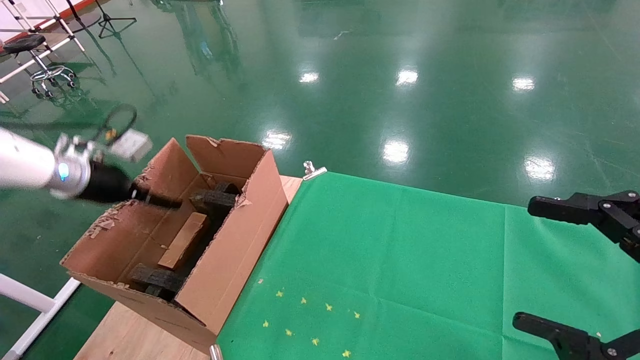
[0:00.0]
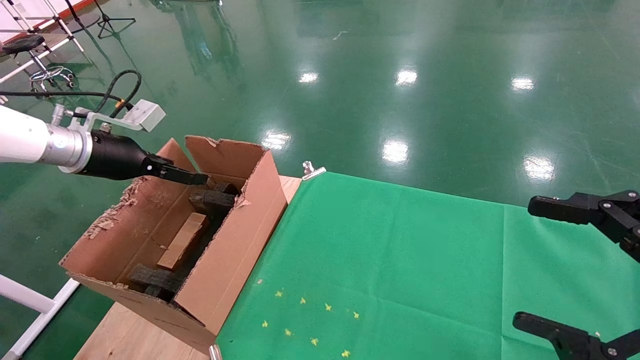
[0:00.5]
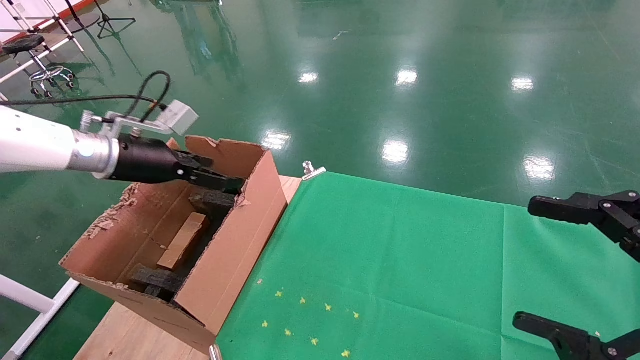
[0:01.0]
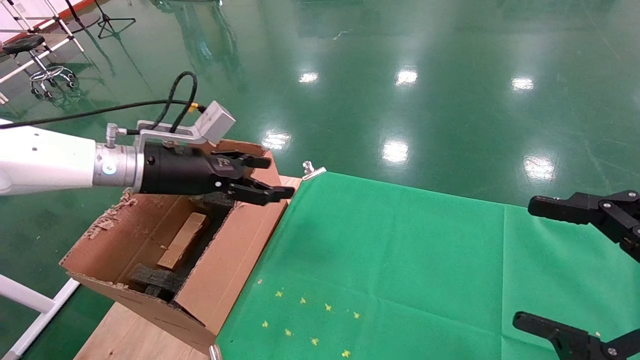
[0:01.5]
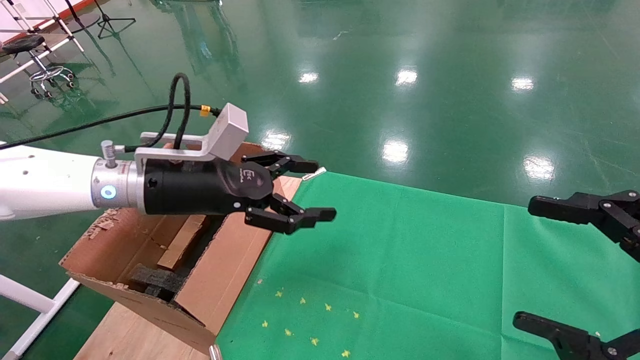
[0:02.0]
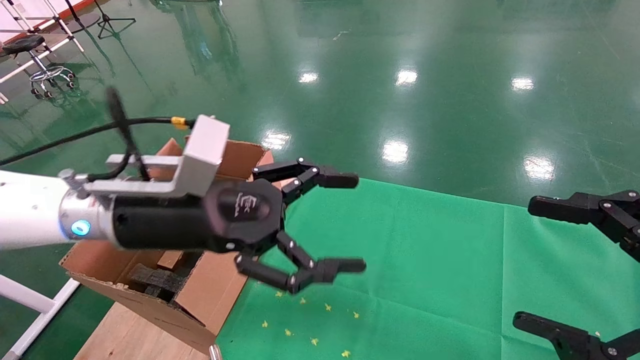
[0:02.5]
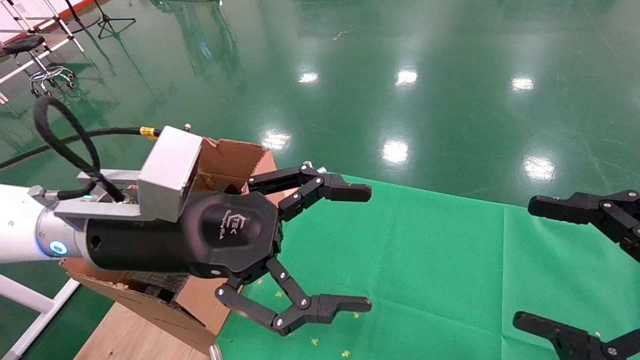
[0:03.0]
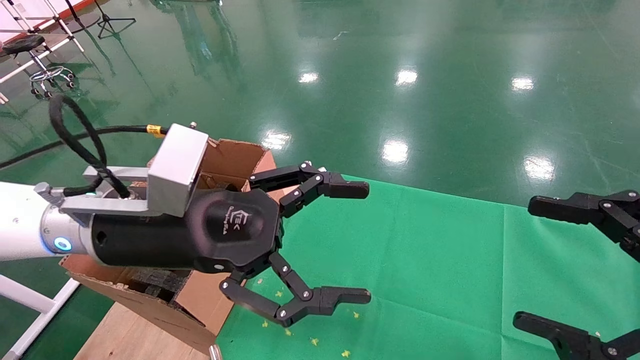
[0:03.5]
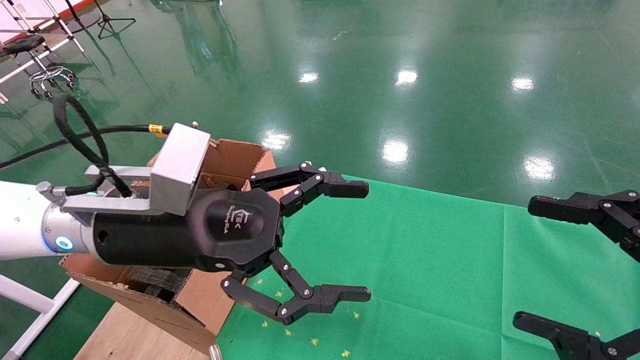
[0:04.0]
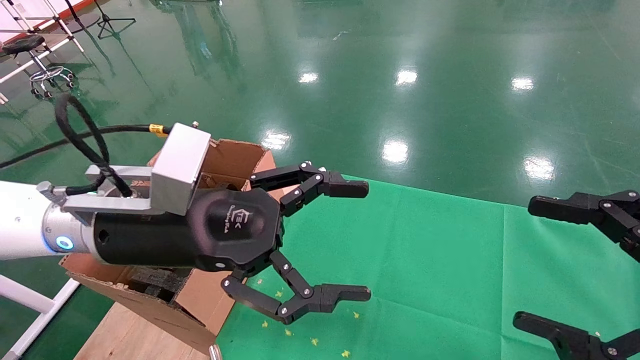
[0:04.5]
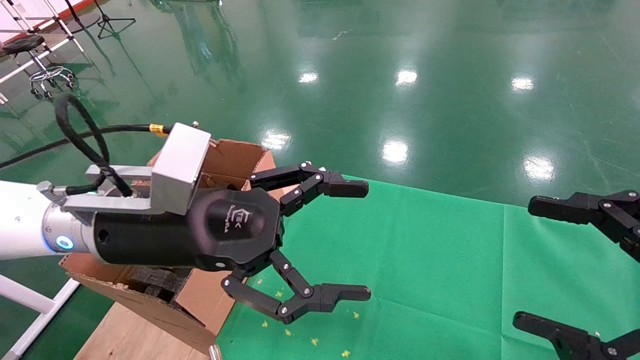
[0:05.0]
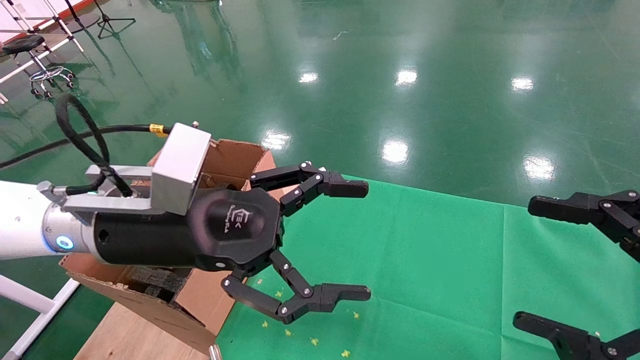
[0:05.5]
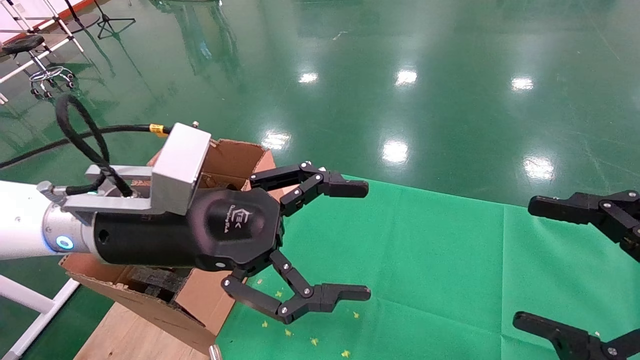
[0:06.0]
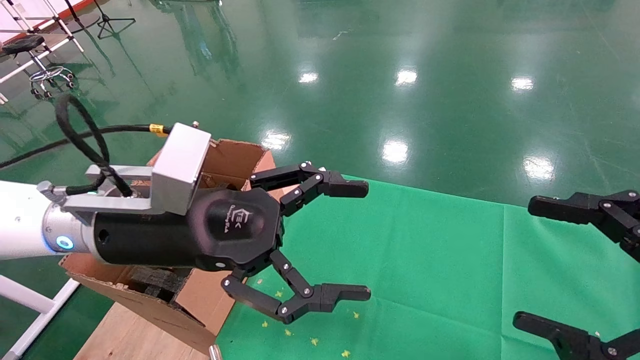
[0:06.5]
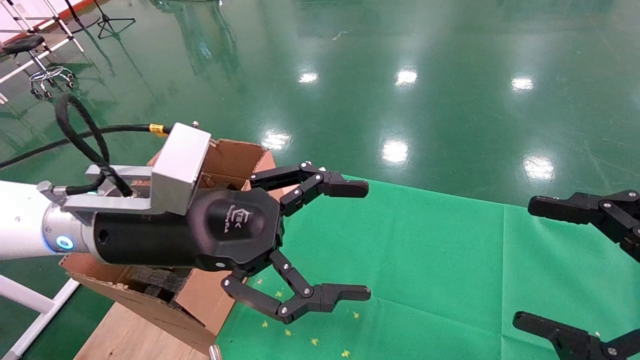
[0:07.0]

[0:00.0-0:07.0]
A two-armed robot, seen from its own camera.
Task of the whole recording: using a robotic arm to pick up a cardboard box and palace it the carton.
0:00.0 to 0:02.0: The left gripper shifts roughly 20 cm to the right.
0:02.0 to 0:03.5: The left gripper travels backward by roughly 10 cm.
0:03.5 to 0:07.0: Both grippers stay about where they are.
